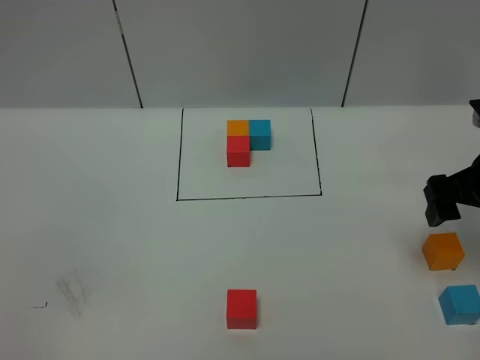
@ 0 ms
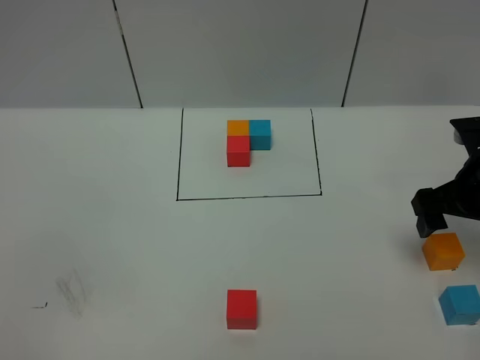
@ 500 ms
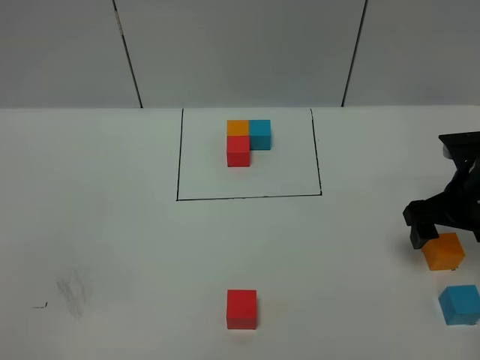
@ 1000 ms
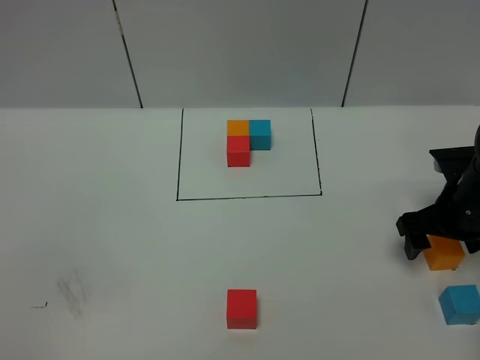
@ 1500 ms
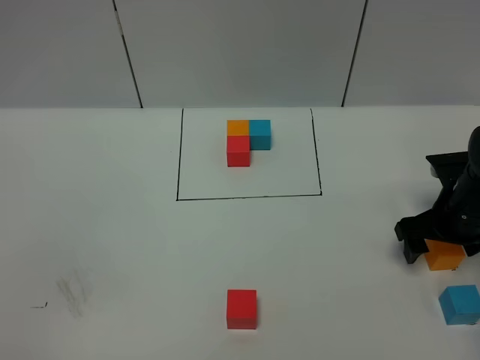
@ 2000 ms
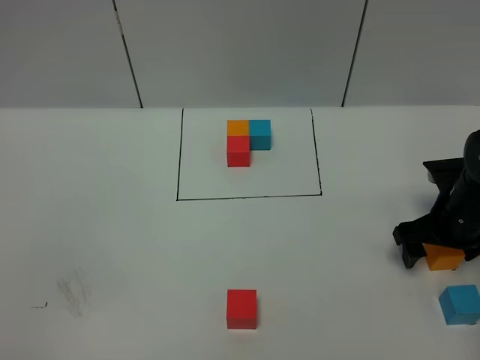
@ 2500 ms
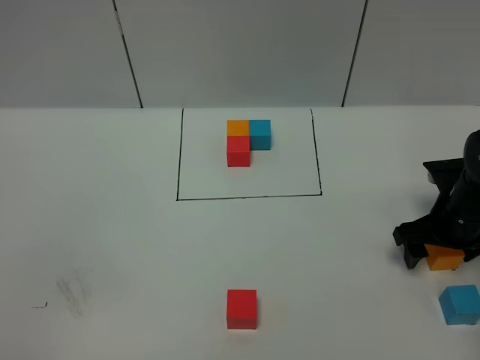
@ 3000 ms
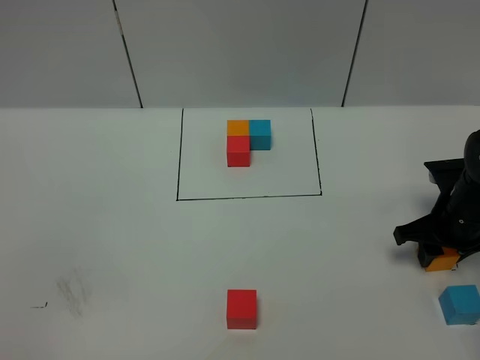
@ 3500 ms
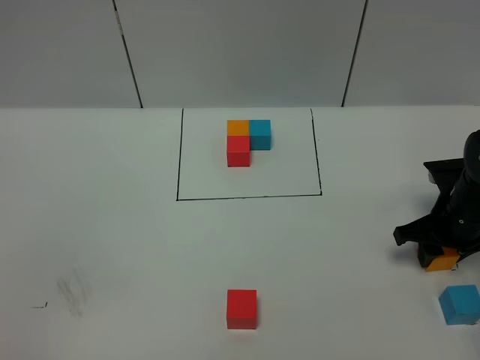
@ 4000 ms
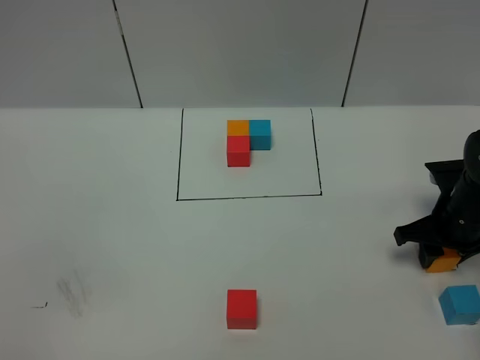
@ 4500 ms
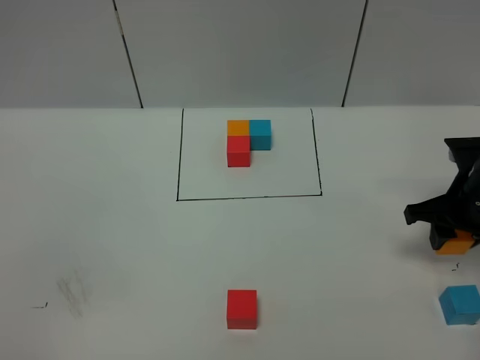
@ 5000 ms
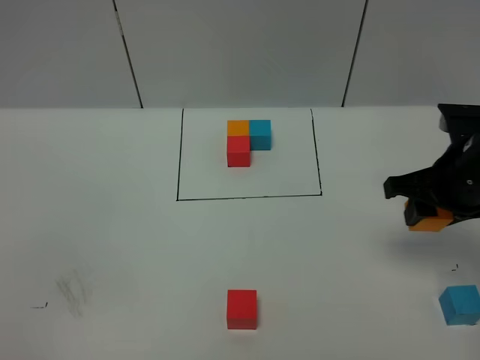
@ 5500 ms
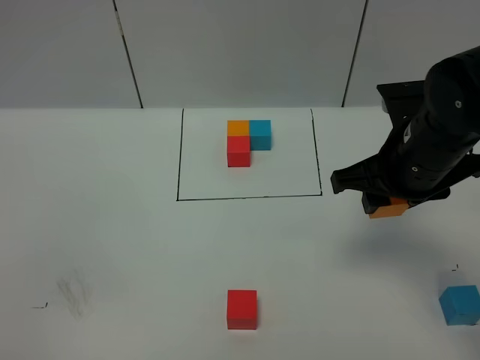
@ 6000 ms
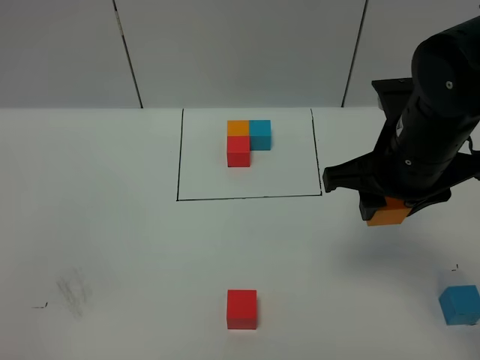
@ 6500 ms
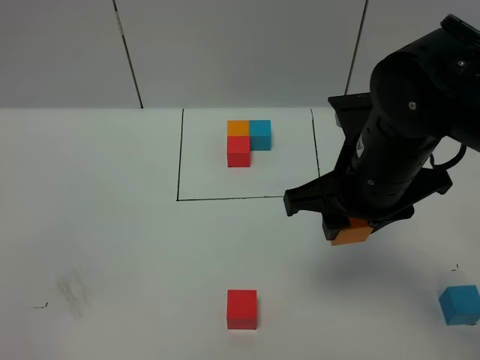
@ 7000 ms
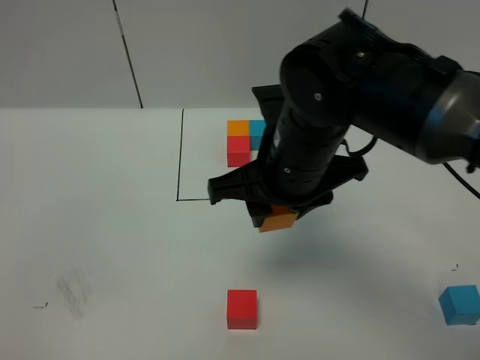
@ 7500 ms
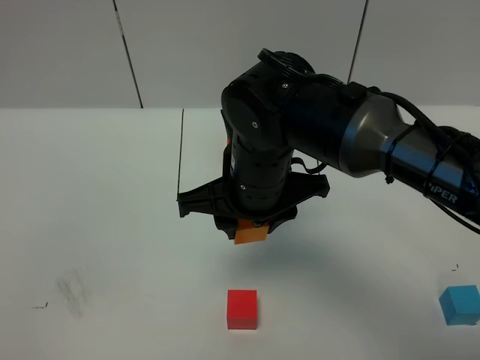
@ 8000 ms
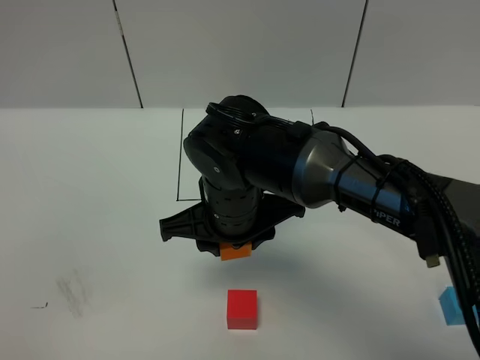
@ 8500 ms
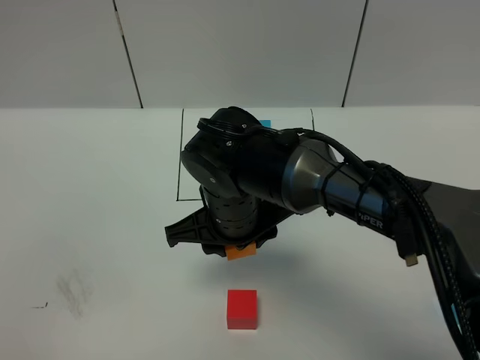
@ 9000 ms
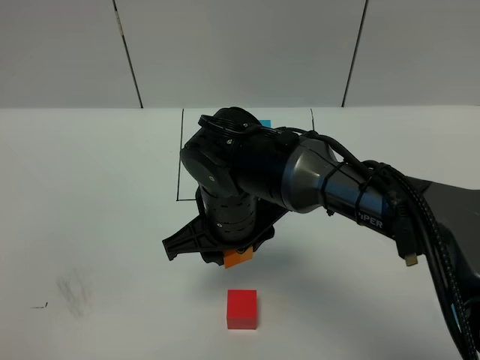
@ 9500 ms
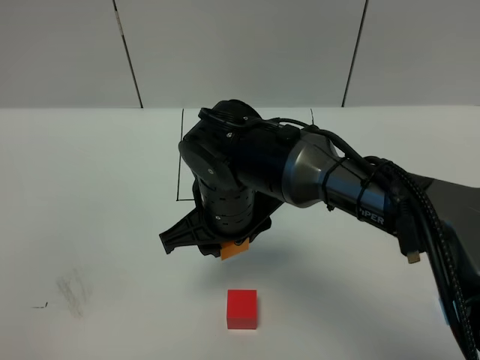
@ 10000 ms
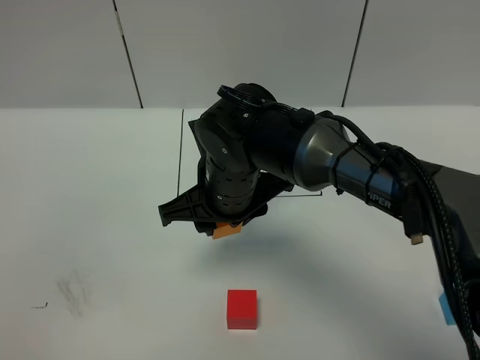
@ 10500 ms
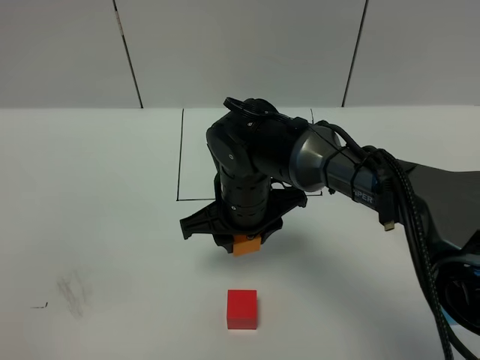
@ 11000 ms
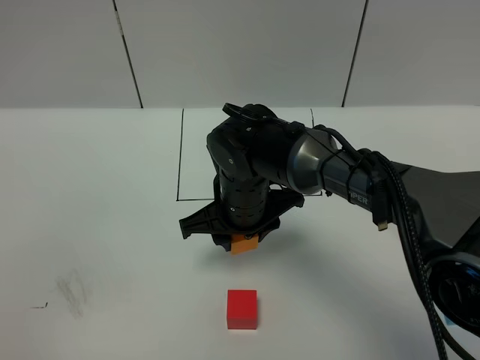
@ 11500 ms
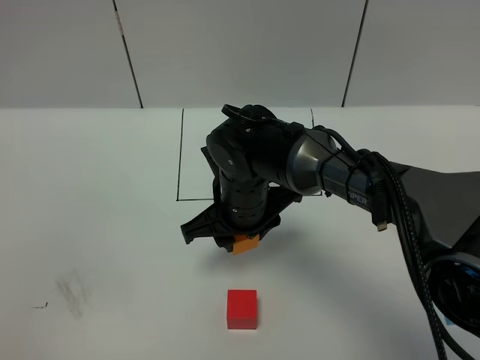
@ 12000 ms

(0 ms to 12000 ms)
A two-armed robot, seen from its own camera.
Task of the whole recording: According to the building block template in front, assemble the scattered blocks together.
0 ms - 2000 ms: The right gripper shifts approximately 10 cm downward.
2000 ms - 4000 ms: The right gripper closes.
4000 ms - 6000 ms: The right gripper travels upward and to the left by roughly 20 cm.
6000 ms - 8000 ms: The right gripper shifts some 15 cm to the left.
8000 ms - 10000 ms: The right gripper moves about 5 cm.
10000 ms - 12000 ms: The right gripper changes place by about 5 cm.

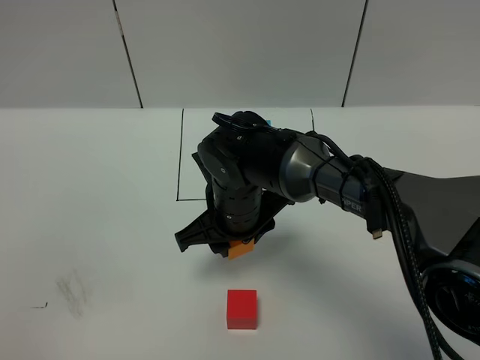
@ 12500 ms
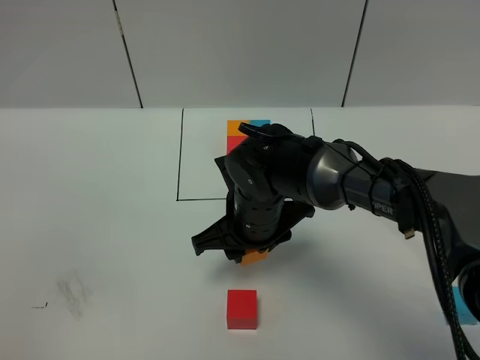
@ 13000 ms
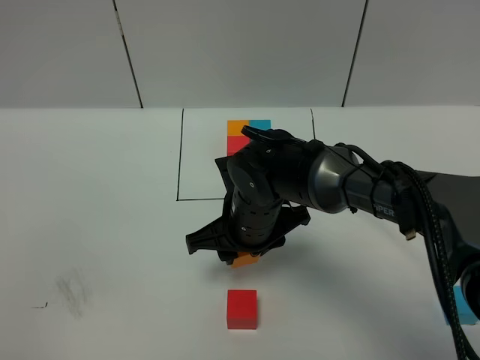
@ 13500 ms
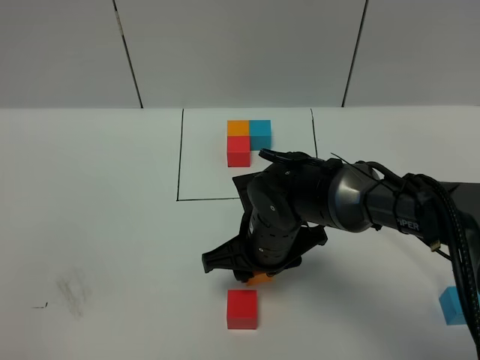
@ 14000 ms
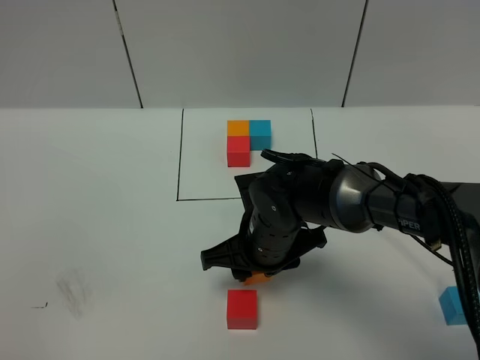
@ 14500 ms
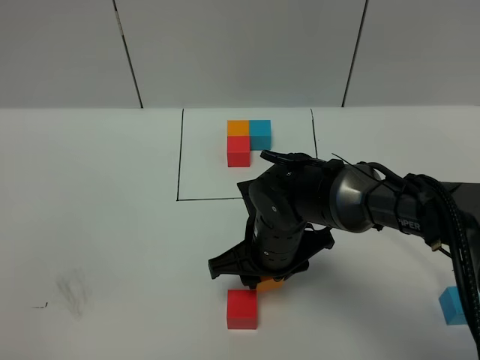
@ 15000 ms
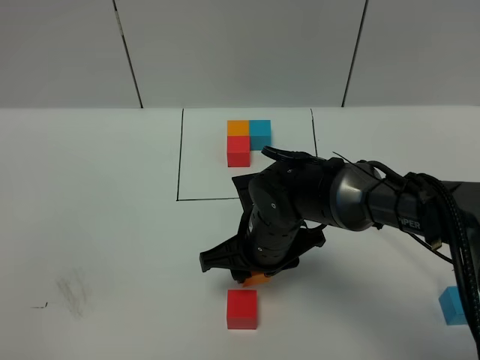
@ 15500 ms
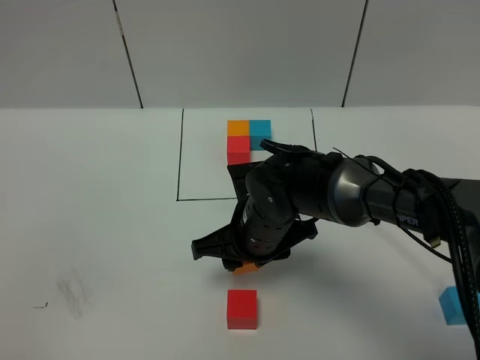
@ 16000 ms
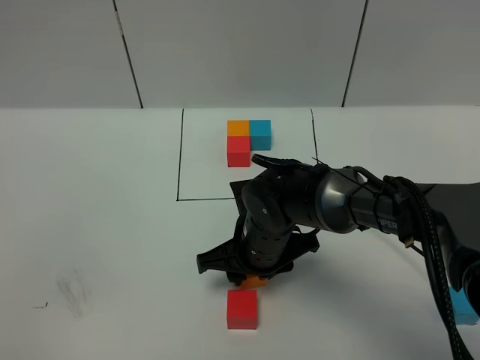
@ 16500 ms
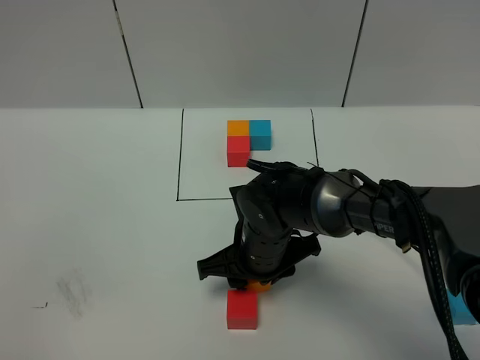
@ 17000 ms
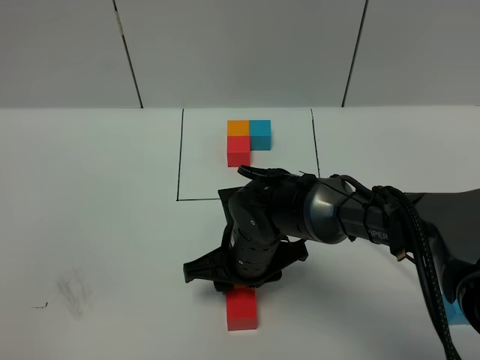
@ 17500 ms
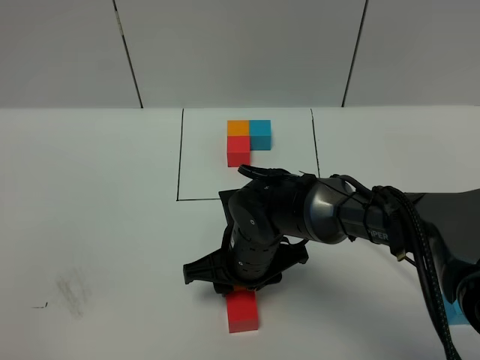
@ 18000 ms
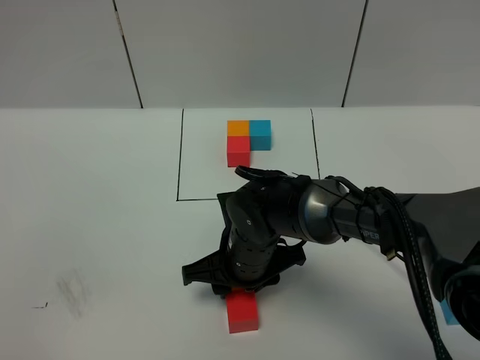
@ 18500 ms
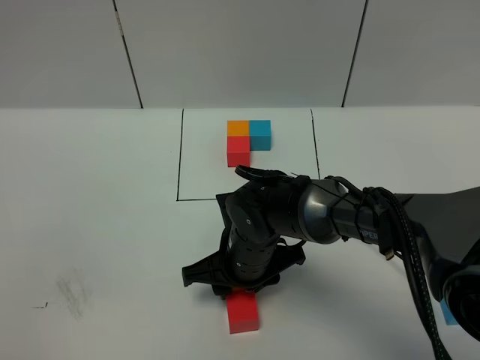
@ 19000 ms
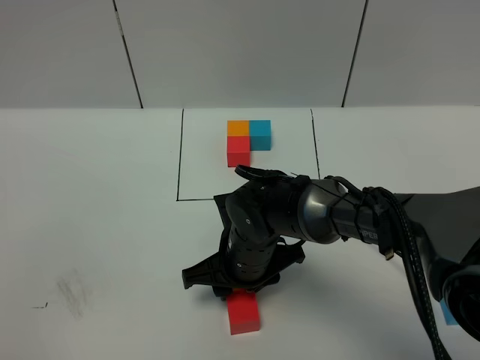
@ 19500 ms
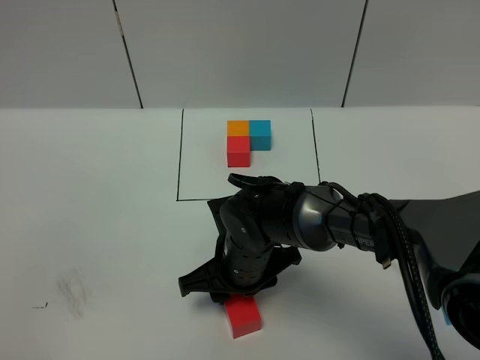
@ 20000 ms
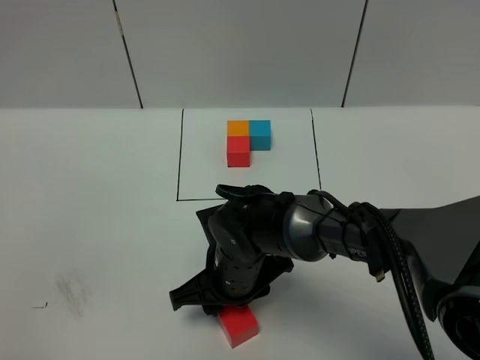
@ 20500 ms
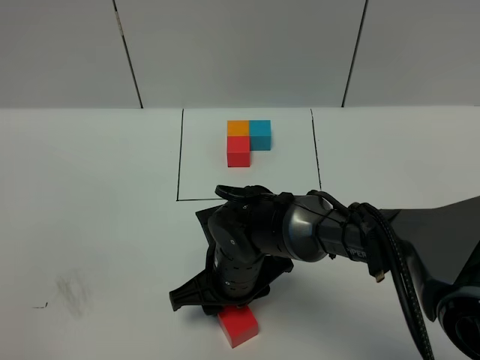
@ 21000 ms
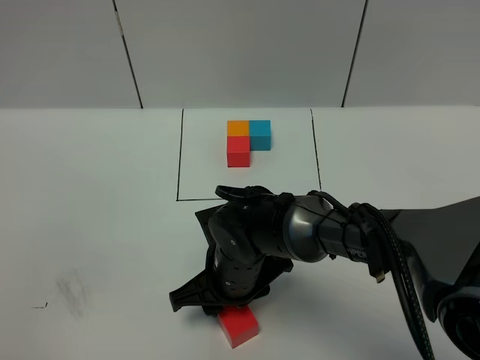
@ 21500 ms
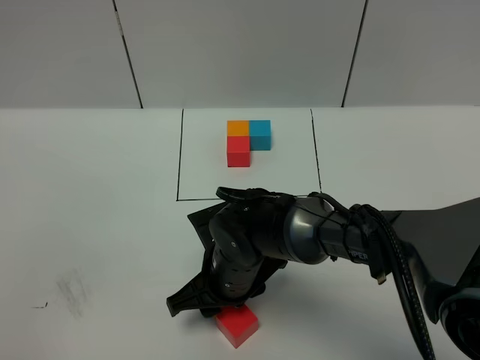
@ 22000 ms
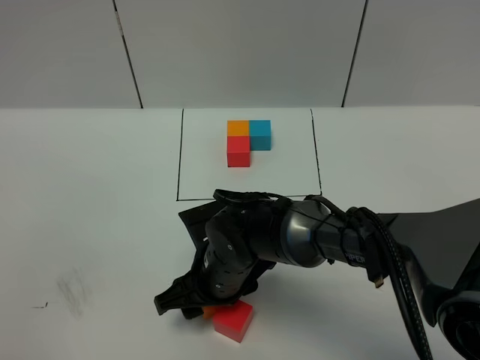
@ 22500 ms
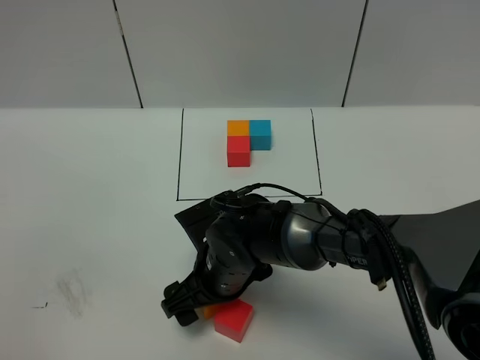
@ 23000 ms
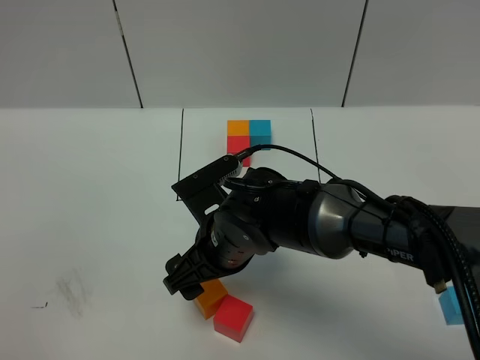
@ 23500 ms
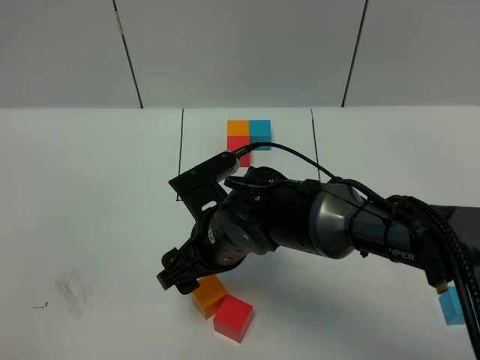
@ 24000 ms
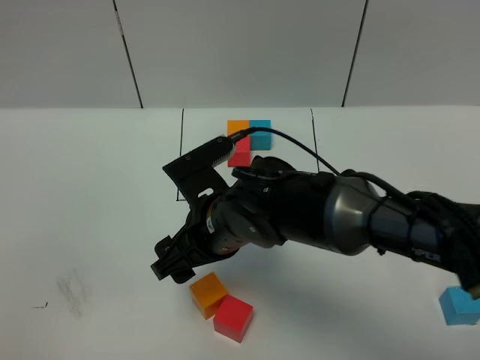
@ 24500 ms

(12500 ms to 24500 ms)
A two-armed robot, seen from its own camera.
Task of the whole recording: According to the building block template in front, assemble the scattered blocks together.
Step, 12500 ms - 24000 ms: Put the orange cube on the behind of the red cube.
12500 ms - 14500 ms: The right gripper ends up approximately 5 cm from where it was.
14500 ms - 18500 ms: The grippers make only small movements.
18500 ms - 22500 ms: There are only small adjustments of the grippers.
22500 ms - 24500 ms: The right gripper goes approximately 10 cm upward.

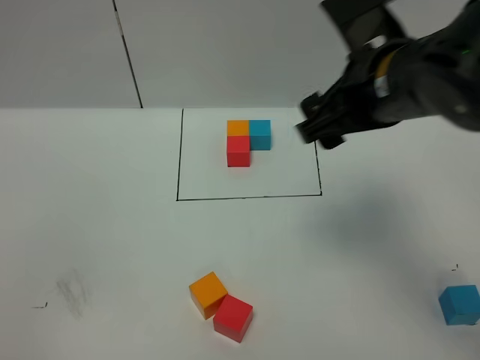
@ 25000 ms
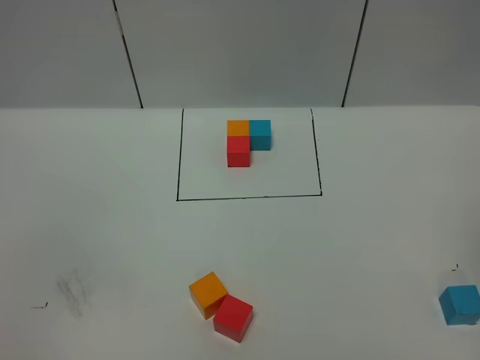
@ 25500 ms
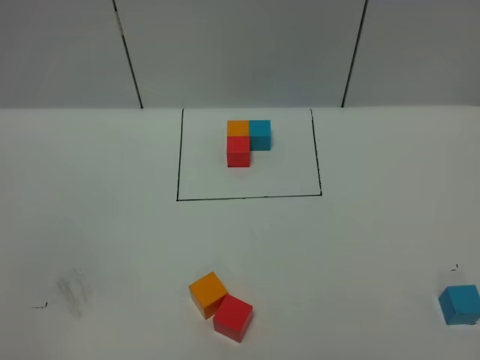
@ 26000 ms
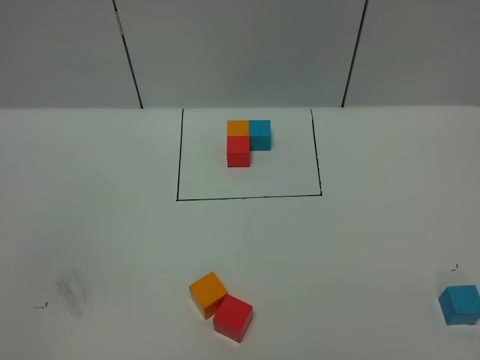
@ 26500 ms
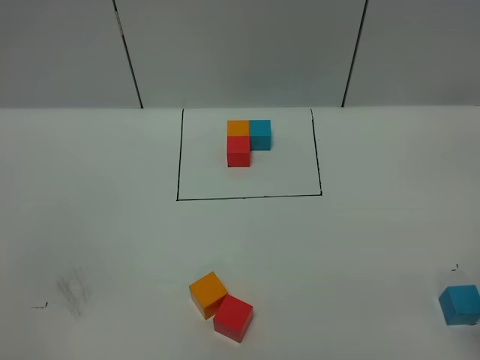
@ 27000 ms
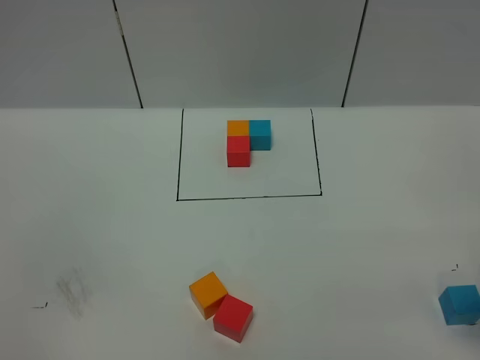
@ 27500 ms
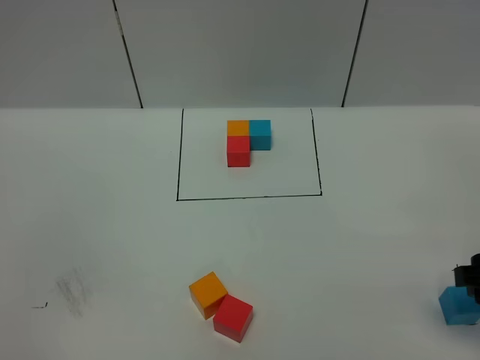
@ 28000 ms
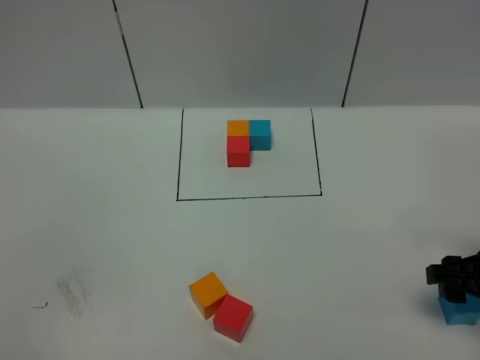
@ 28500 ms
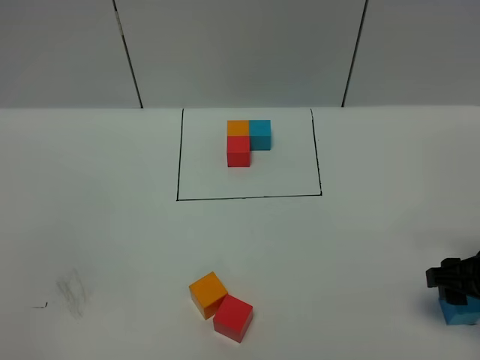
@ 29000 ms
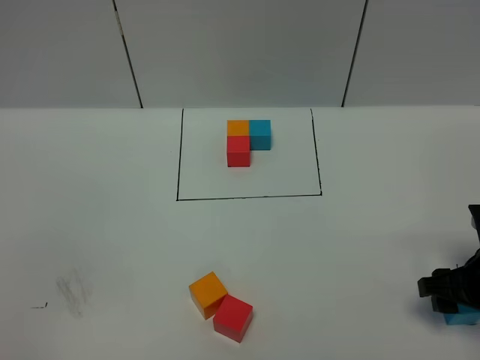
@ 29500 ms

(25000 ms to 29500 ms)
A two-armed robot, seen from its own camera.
Task of the whole recording: According to the building block template in front, assemble the scattered blocks together.
25000 ms - 27000 ms: The right gripper moves to the right and backward, approximately 20 cm.
27000 ms - 29500 ms: The right gripper travels downward and forward by roughly 20 cm.
